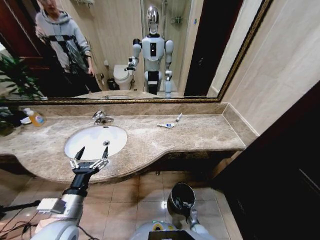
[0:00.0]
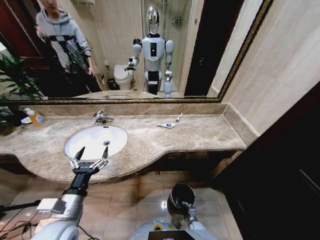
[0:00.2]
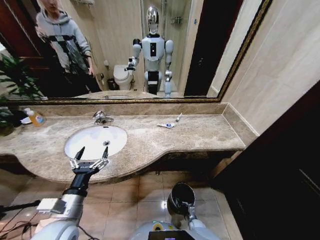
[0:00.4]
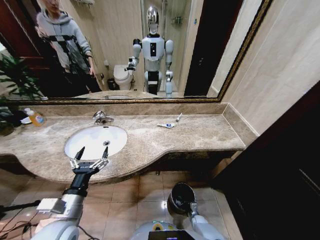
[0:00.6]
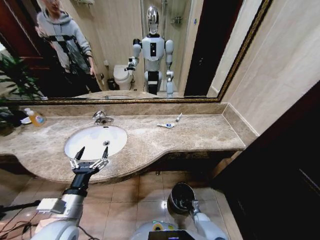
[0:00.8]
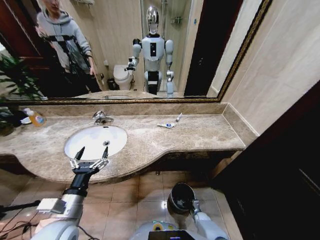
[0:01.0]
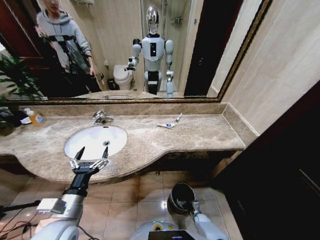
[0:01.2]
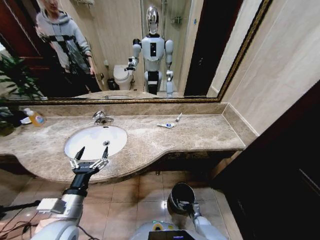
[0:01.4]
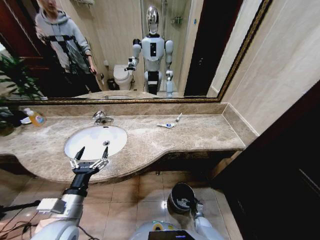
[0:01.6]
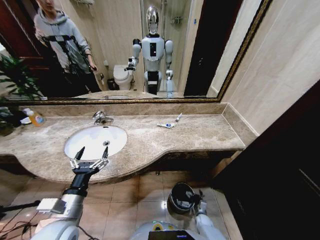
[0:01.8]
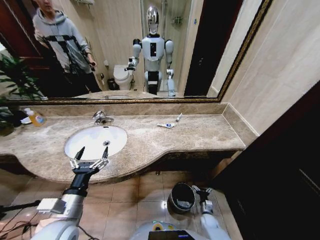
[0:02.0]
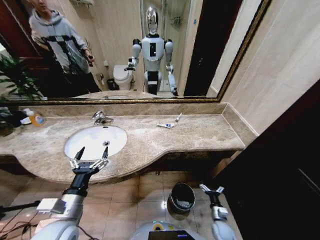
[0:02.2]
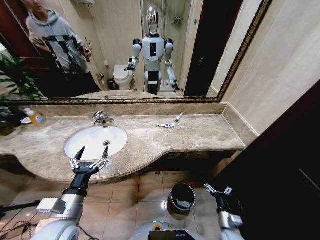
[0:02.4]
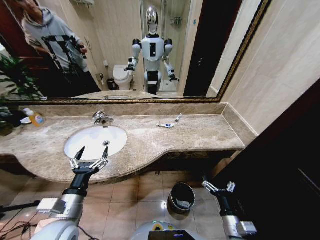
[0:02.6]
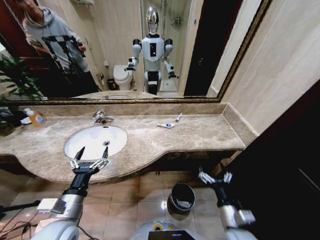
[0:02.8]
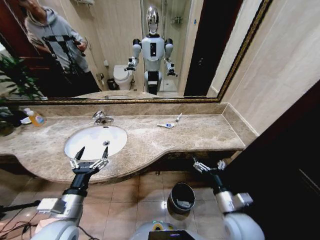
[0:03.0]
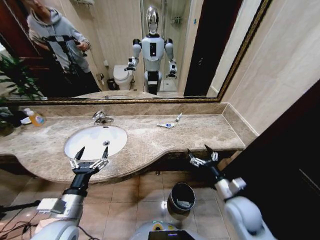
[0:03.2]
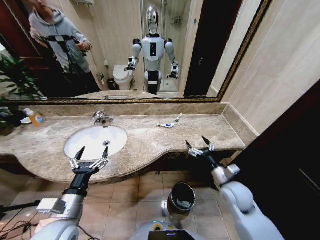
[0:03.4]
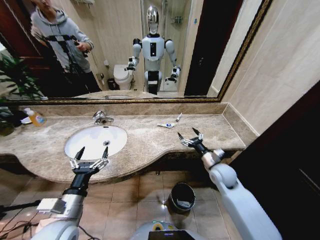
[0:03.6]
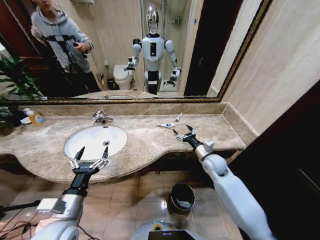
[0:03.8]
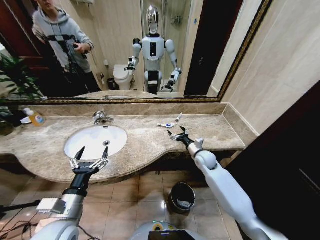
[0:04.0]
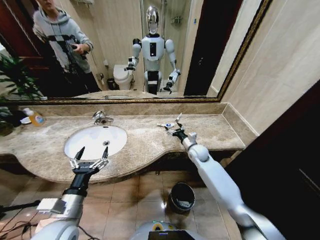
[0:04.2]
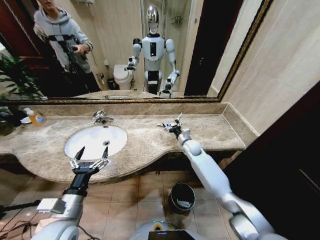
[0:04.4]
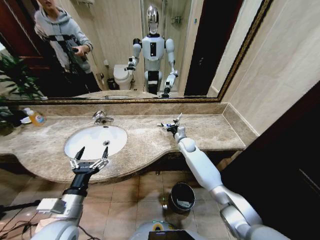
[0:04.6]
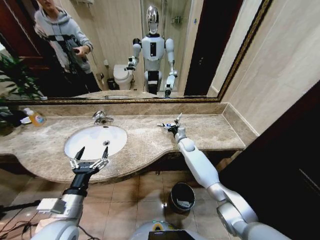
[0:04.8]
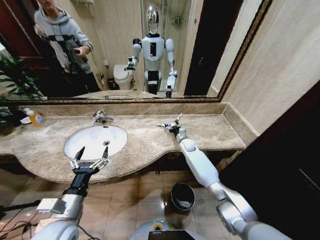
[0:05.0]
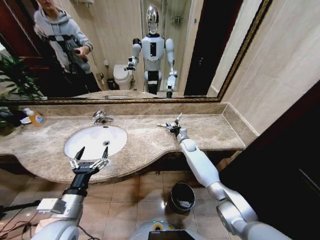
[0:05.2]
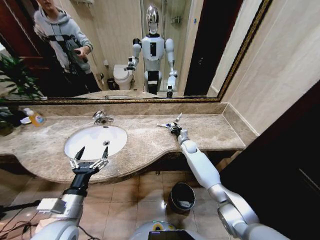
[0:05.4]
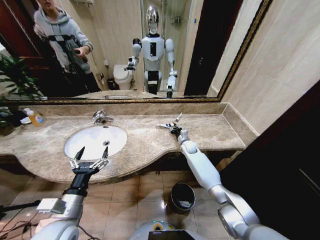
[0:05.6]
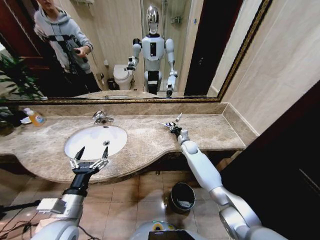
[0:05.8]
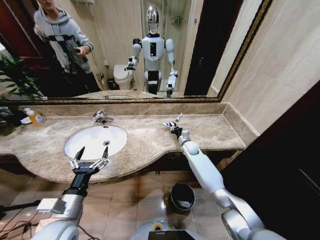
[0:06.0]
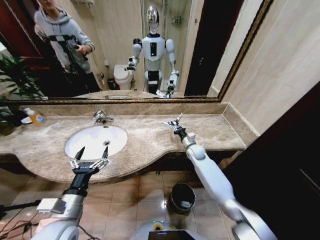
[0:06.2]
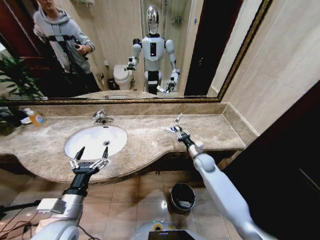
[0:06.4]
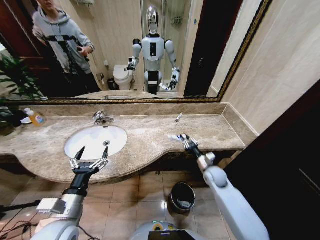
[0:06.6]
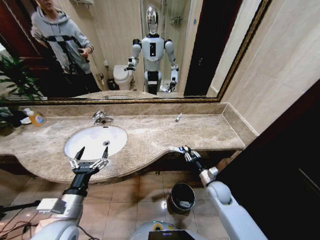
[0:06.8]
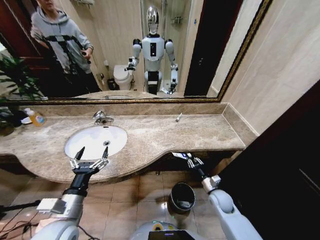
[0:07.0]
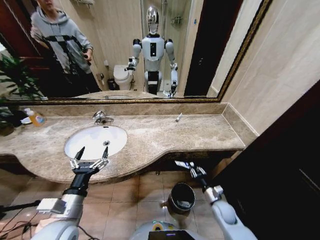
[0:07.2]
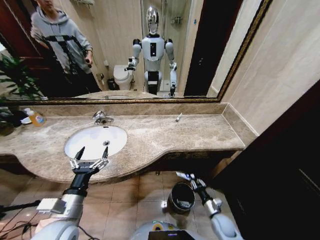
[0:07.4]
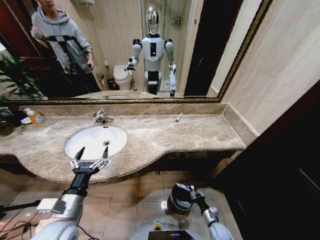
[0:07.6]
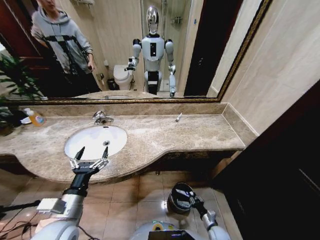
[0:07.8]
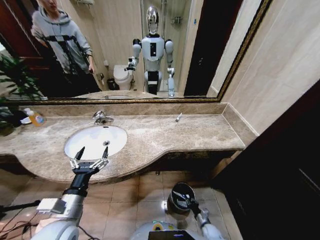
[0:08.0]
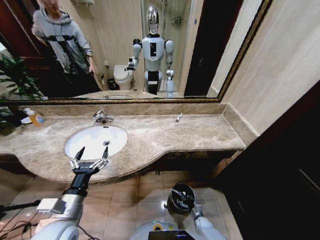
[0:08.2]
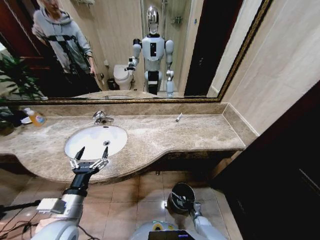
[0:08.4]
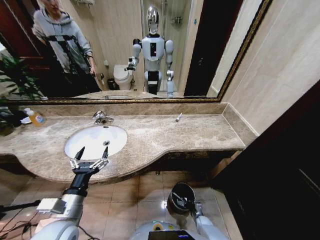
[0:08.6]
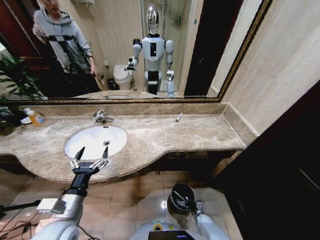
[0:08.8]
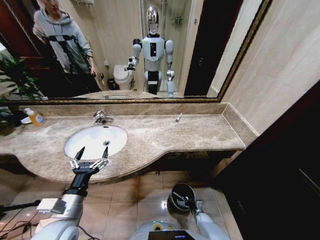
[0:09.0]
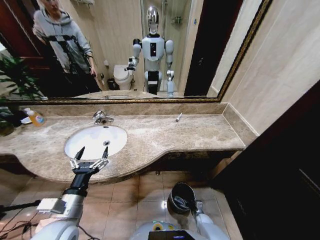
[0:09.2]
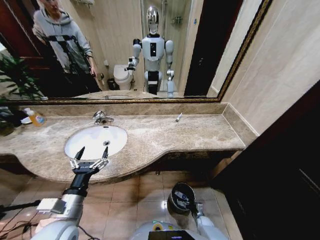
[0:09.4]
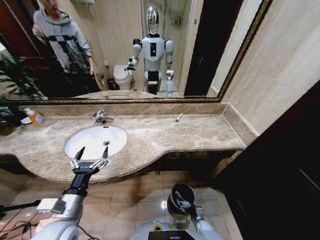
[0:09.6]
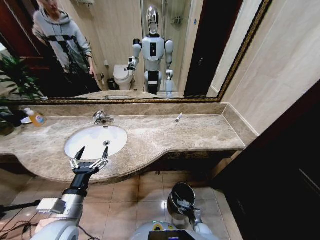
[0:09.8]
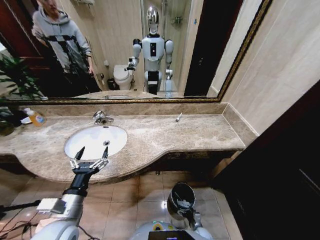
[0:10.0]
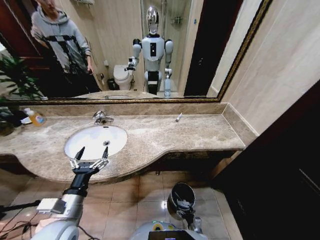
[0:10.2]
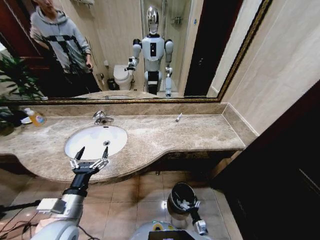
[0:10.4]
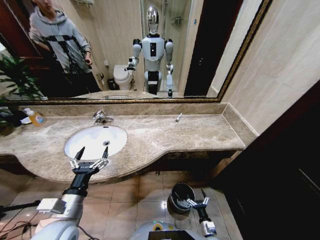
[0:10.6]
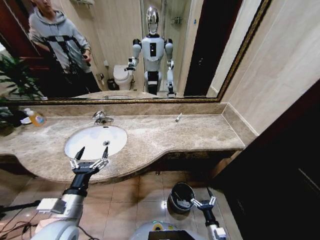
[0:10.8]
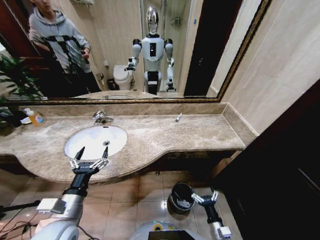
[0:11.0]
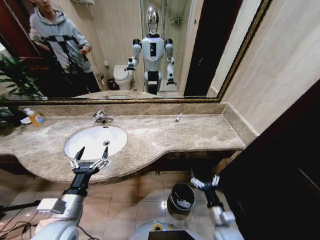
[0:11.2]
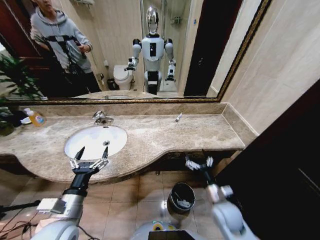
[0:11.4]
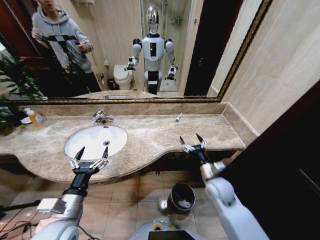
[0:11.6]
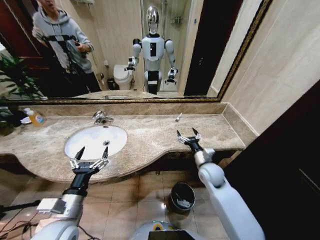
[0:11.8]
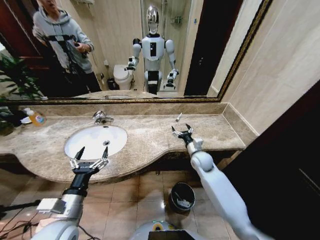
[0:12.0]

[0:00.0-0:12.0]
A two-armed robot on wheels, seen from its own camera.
Task of the whole recording: Pick up the trash from the sink and place it in the trash bin.
0:00.0 to 0:01.6: The right gripper opens its fingers.
0:01.6 to 0:03.0: The right gripper moves upward, approximately 40 cm.
0:03.0 to 0:04.4: The right gripper shifts approximately 35 cm forward.
0:04.4 to 0:06.0: The right gripper ends up about 5 cm from where it was, and closes up.
0:06.0 to 0:07.6: The right gripper moves backward and downward, roughly 40 cm.
0:07.6 to 0:09.0: The right gripper travels downward and forward by approximately 15 cm.
0:09.0 to 0:10.4: The right gripper goes roughly 10 cm backward, and opens.
0:10.4 to 0:12.0: The right gripper travels upward and forward by some 50 cm.

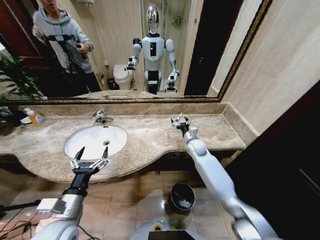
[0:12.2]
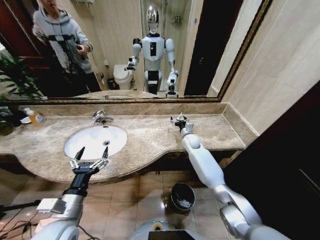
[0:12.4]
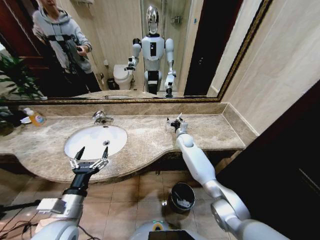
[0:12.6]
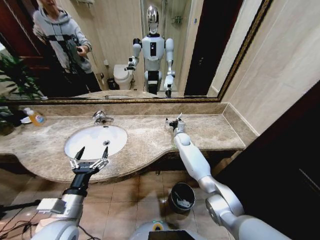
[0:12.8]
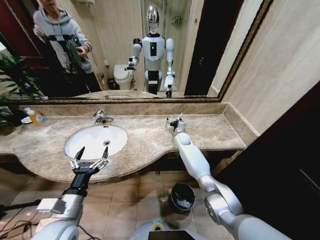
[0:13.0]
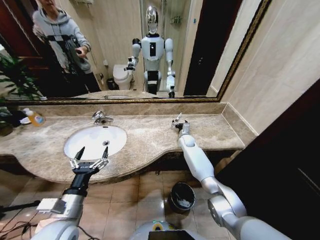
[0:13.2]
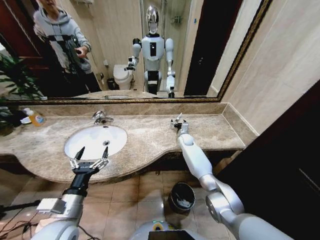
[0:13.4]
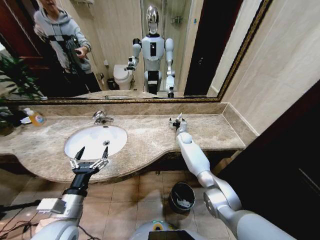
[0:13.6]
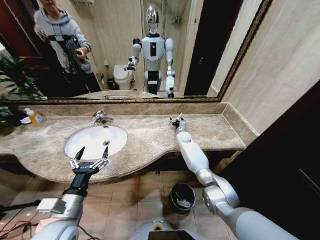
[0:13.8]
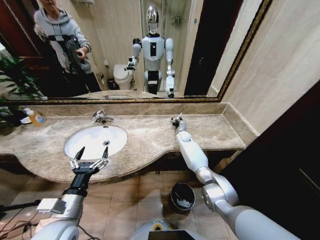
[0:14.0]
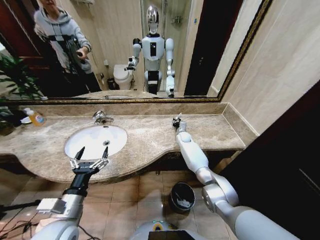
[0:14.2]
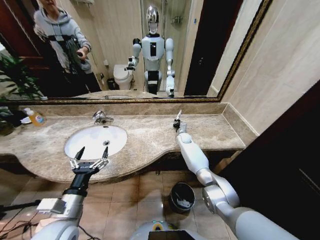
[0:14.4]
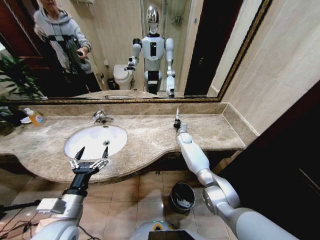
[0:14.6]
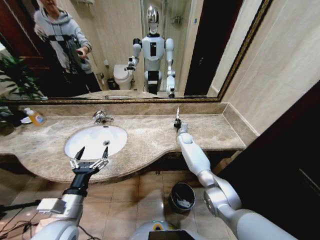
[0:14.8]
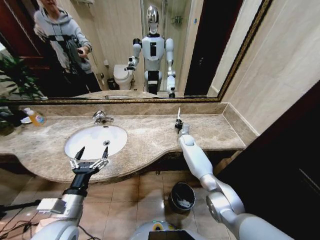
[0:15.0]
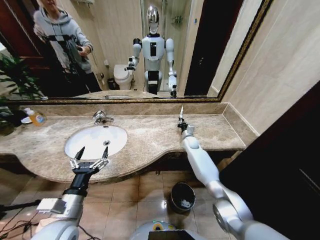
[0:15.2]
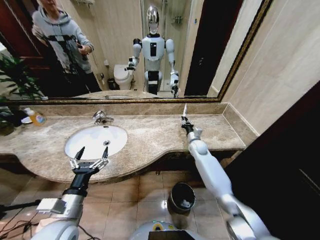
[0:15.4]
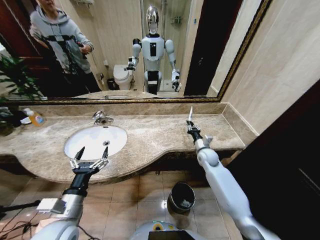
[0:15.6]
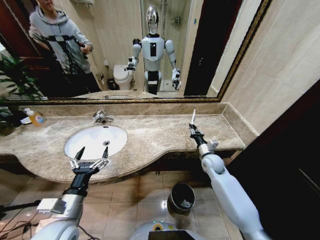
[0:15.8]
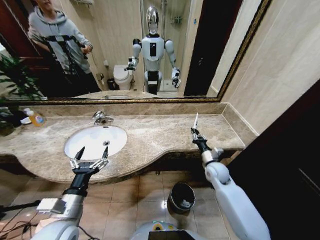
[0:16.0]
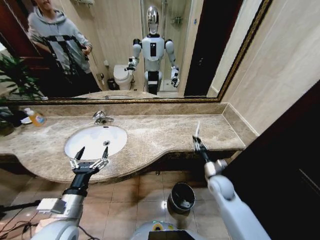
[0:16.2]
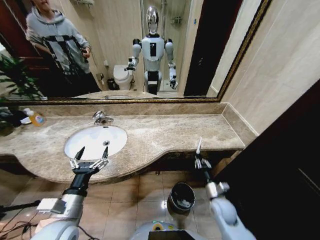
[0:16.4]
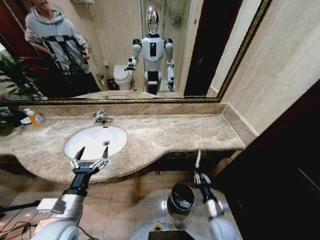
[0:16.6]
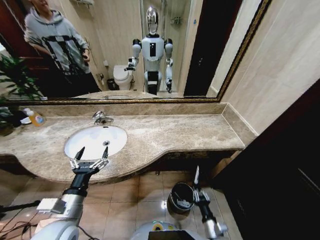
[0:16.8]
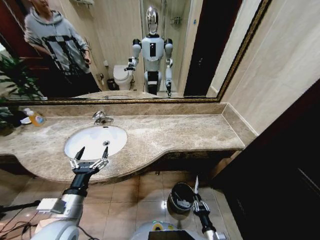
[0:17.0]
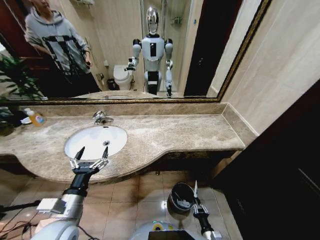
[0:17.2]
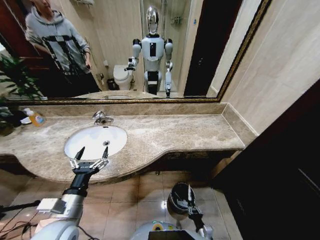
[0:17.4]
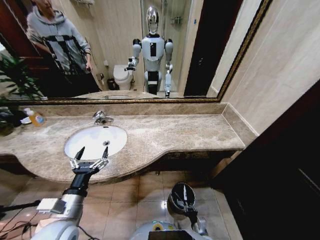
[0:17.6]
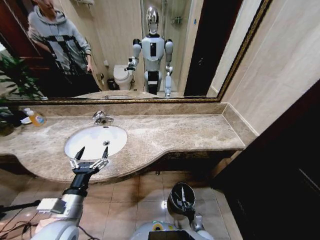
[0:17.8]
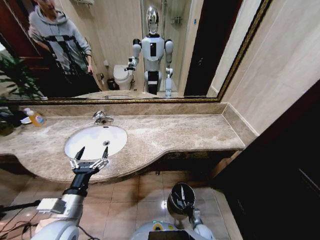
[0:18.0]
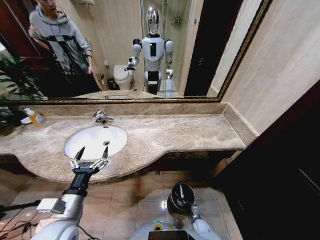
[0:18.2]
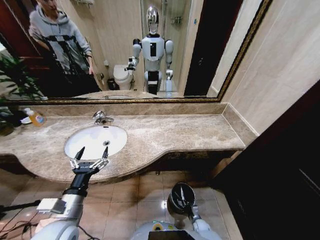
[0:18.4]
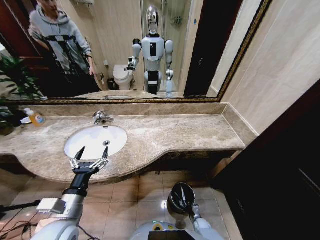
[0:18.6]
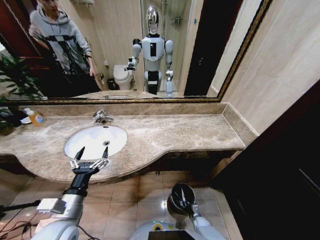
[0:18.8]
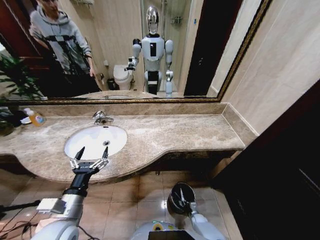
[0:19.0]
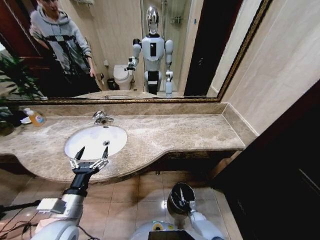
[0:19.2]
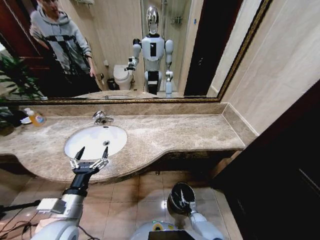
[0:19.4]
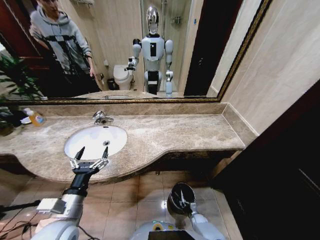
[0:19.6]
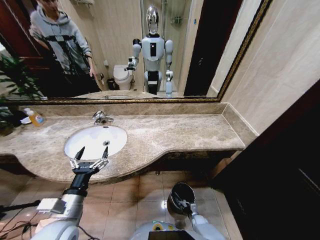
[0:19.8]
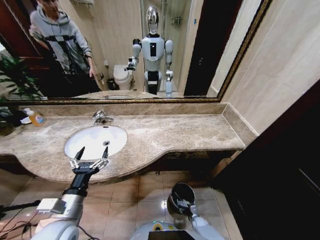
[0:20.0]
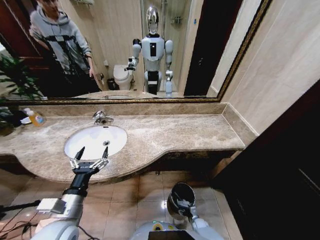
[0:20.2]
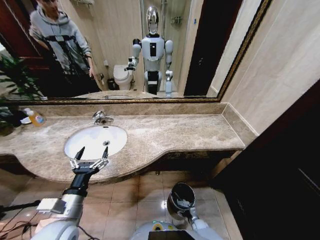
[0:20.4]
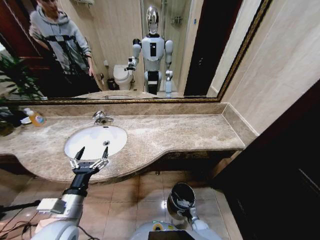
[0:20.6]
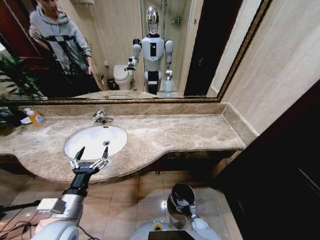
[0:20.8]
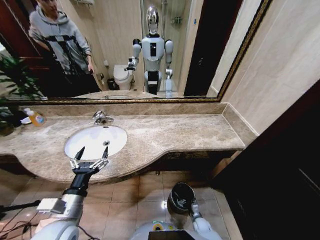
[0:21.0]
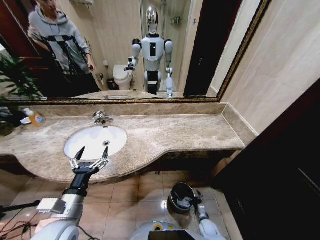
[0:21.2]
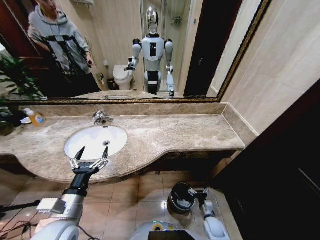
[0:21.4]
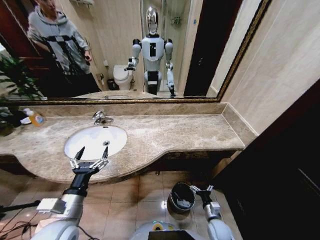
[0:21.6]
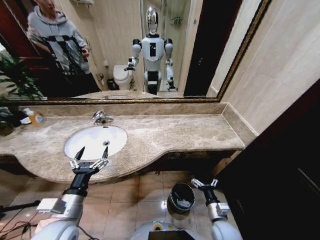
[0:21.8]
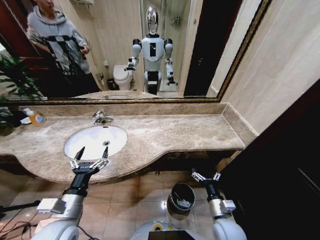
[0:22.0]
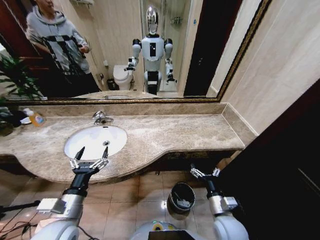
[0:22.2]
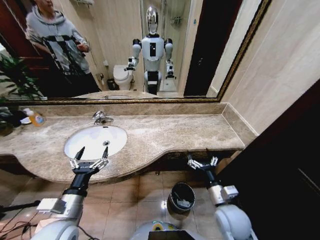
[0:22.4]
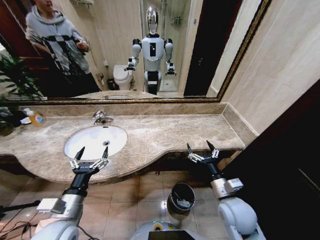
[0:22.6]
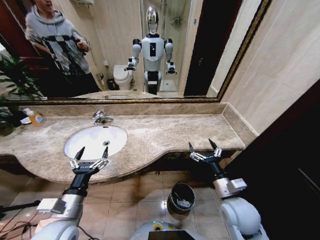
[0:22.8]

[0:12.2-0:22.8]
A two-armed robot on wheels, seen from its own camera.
Task of the whole recording: Pick up the trash from the sink and place it in the trash bin.
0:12.2 to 0:13.8: The right gripper travels forward by some 15 cm.
0:13.8 to 0:15.2: The right gripper moves about 5 cm, and closes its fingers.
0:15.2 to 0:16.8: The right gripper shifts approximately 50 cm backward.
0:16.8 to 0:18.2: The right gripper heads downward and forward, covering some 20 cm.
0:18.2 to 0:19.8: The grippers make only small movements.
0:19.8 to 0:21.2: The right gripper moves upward, roughly 5 cm, and opens.
0:21.2 to 0:22.8: The right gripper is displaced upward by some 40 cm.
